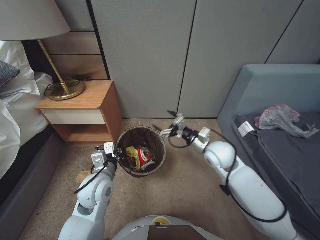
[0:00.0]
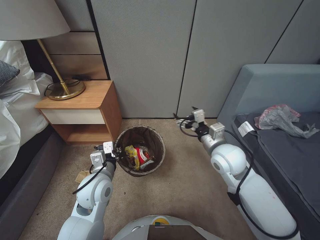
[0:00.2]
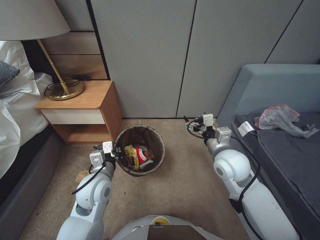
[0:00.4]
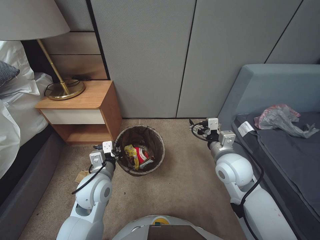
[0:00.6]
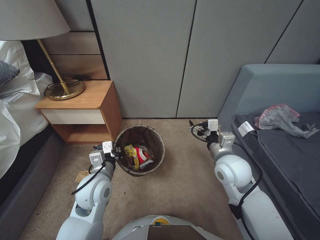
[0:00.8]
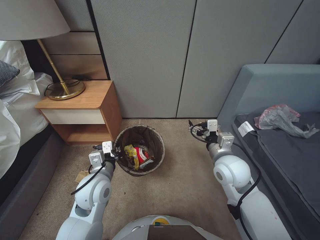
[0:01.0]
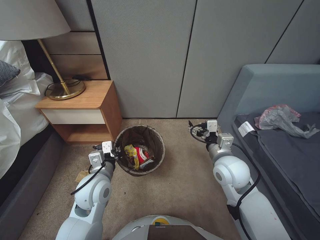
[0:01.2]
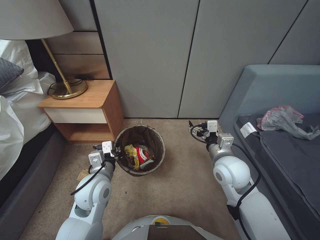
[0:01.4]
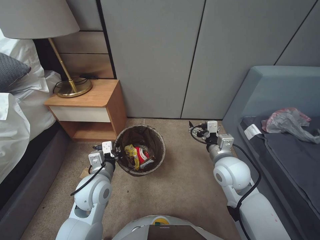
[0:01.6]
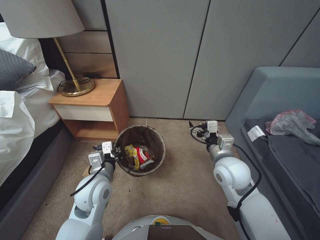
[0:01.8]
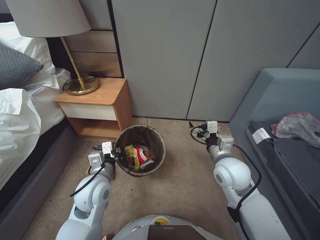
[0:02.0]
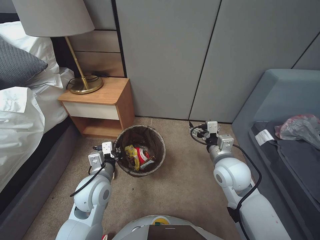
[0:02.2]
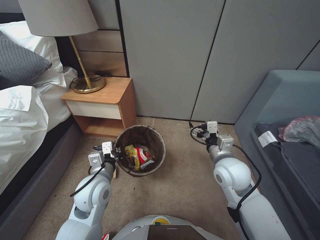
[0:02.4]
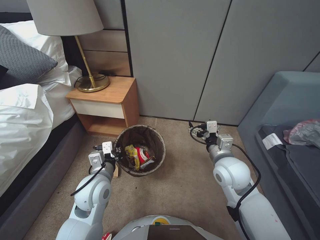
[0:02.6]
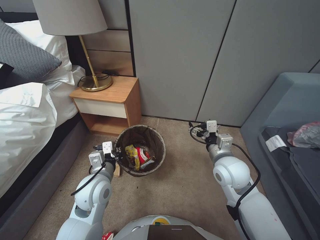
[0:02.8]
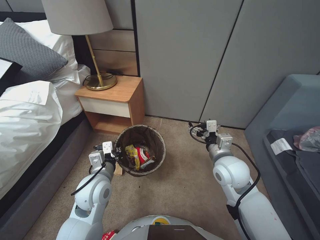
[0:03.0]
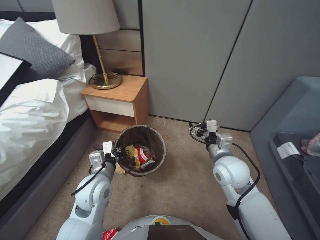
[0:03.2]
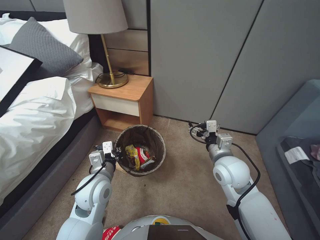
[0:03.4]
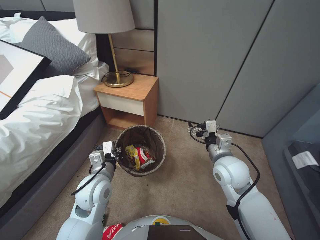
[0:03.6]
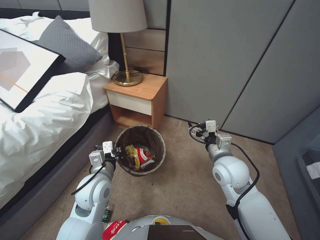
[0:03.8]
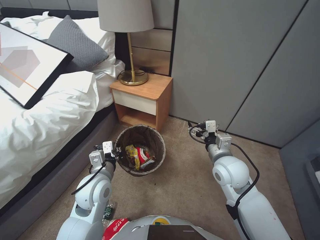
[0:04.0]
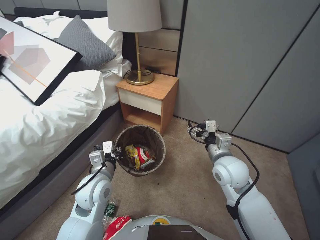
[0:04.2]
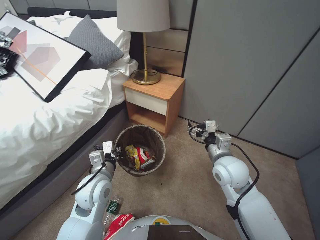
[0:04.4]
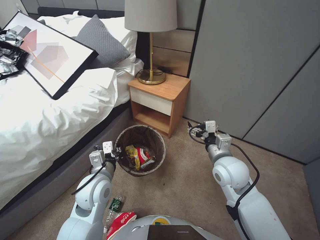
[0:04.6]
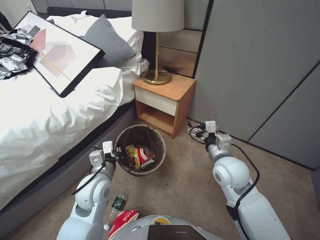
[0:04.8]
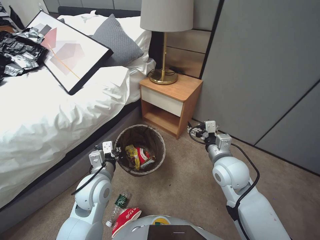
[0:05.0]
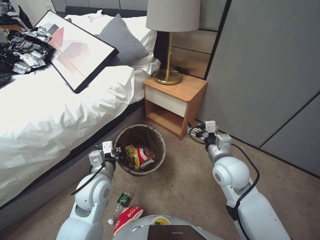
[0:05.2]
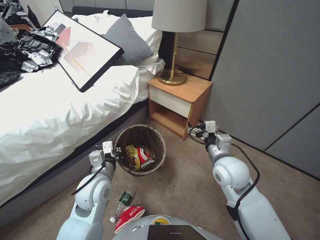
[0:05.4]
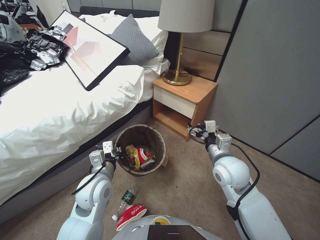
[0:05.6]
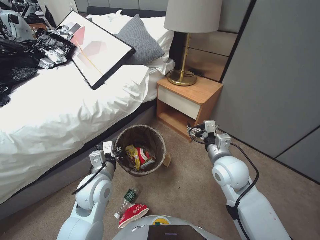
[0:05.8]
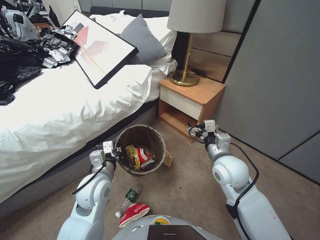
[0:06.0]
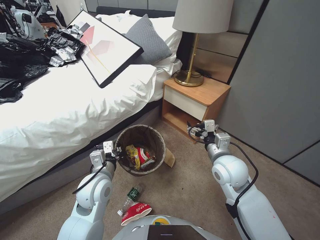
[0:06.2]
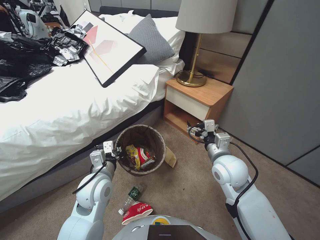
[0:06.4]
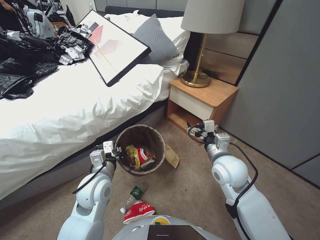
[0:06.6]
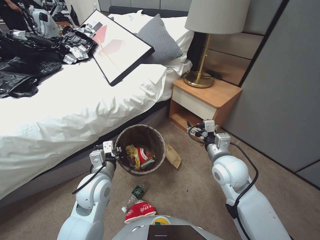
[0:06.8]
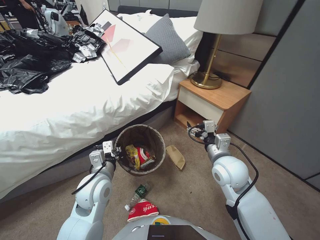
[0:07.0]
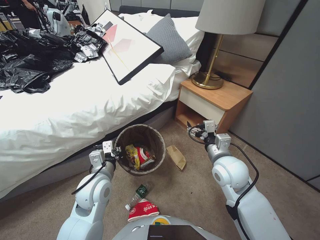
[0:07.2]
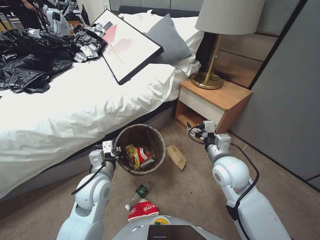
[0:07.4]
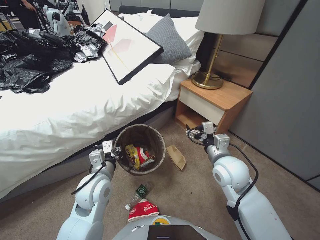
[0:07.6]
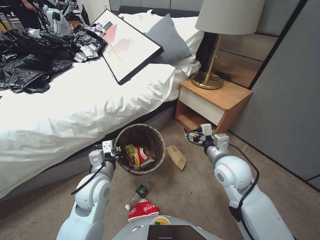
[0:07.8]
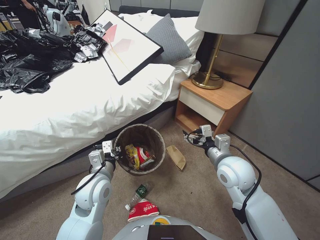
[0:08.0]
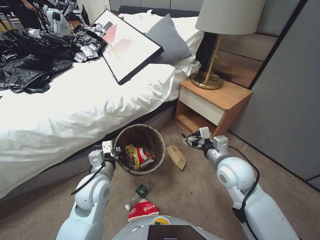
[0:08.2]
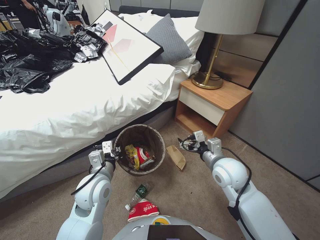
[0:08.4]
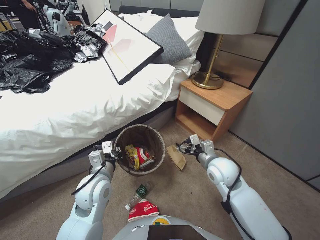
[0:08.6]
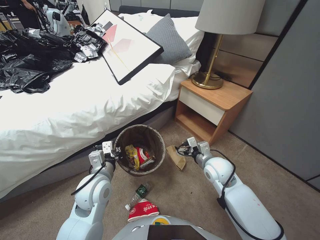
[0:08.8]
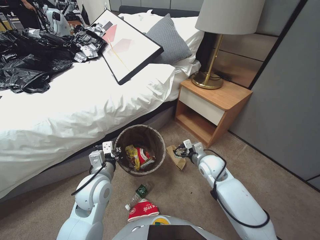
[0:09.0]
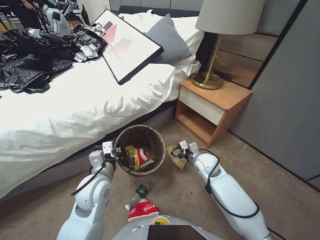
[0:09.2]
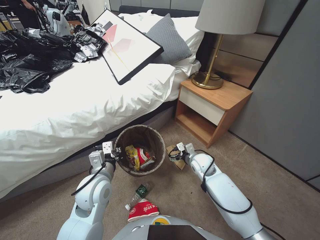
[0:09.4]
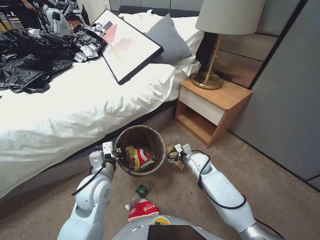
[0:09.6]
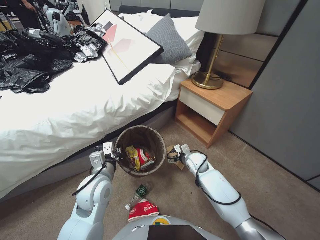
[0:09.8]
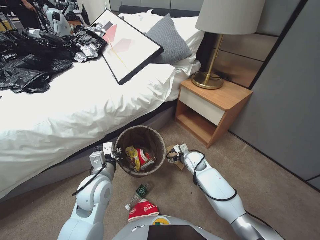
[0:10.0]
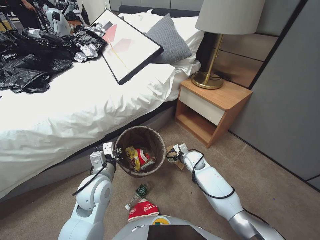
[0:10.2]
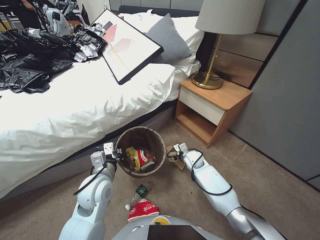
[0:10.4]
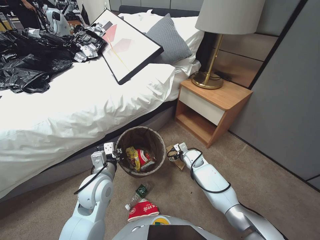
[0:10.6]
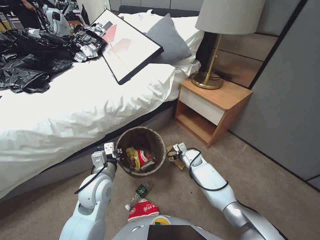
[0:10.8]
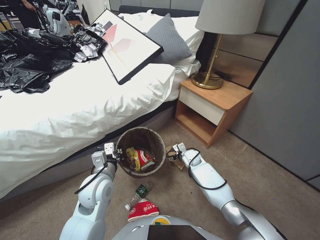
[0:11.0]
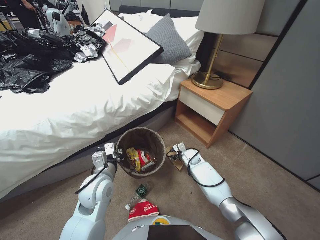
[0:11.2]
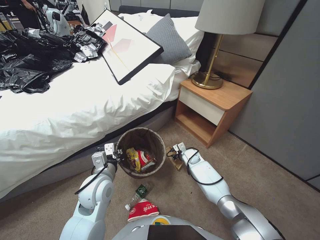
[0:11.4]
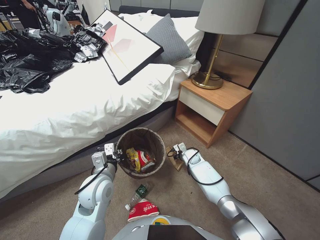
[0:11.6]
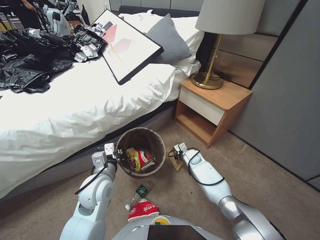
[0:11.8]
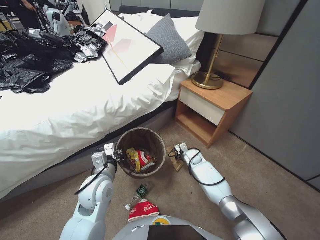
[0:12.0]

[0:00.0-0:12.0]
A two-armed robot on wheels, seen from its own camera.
Task of the whole recording: Pick up the trash bin, then pick up the garbage from the floor and place it into the trash bin.
0:00.0 to 0:01.6: The right gripper is displaced backward and upward by roughly 10 cm.
0:07.6 to 0:09.0: The right gripper travels downward and forward by approximately 10 cm.
0:09.0 to 0:10.4: The right gripper is displaced downward and forward by some 15 cm.
0:10.4 to 0:12.0: The right gripper shifts by some 5 cm, and closes.

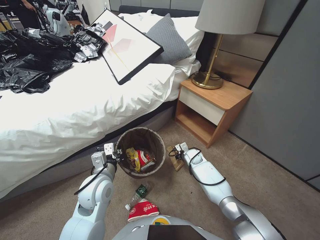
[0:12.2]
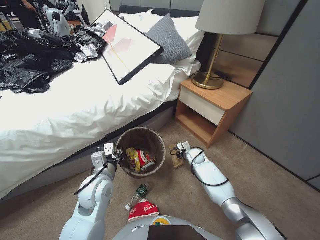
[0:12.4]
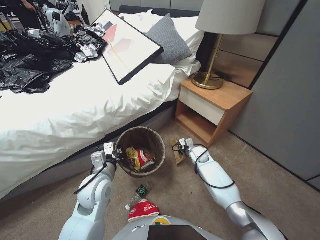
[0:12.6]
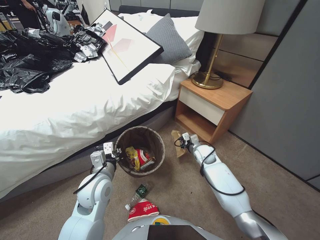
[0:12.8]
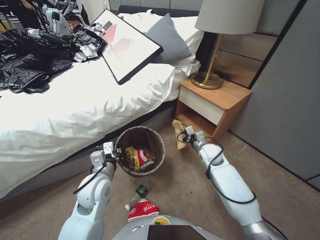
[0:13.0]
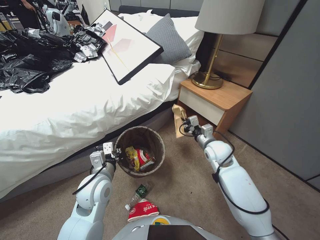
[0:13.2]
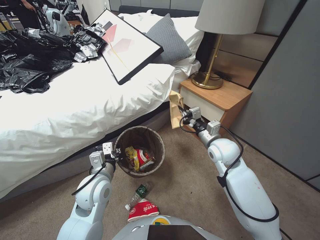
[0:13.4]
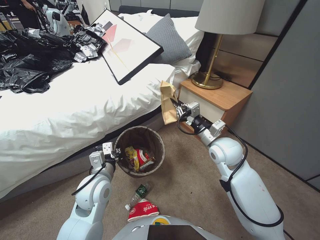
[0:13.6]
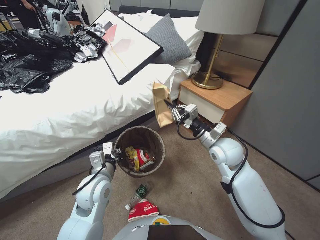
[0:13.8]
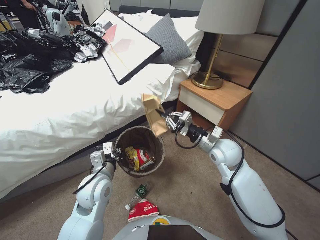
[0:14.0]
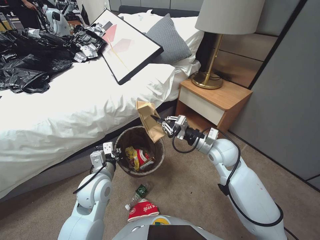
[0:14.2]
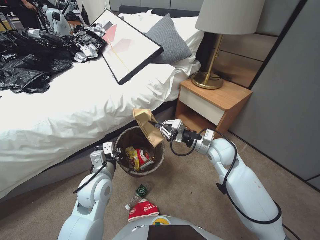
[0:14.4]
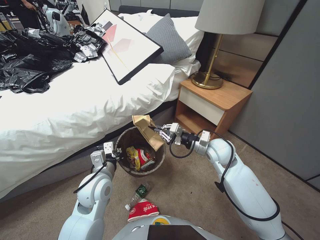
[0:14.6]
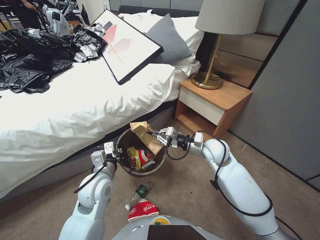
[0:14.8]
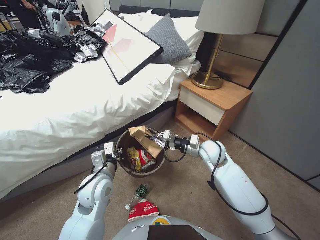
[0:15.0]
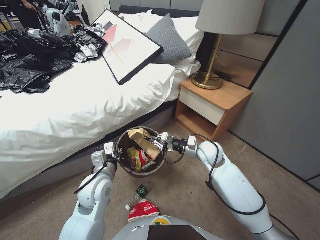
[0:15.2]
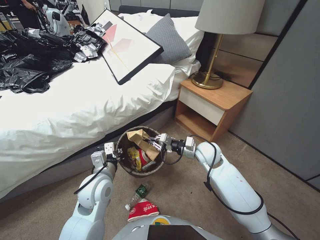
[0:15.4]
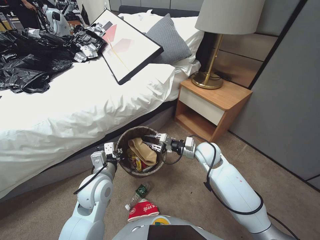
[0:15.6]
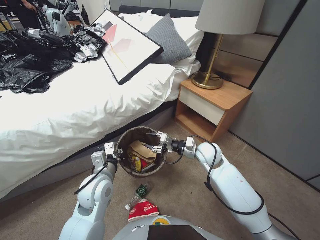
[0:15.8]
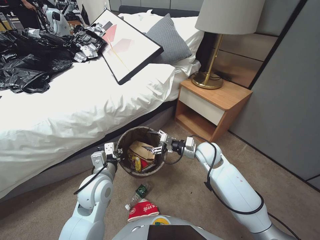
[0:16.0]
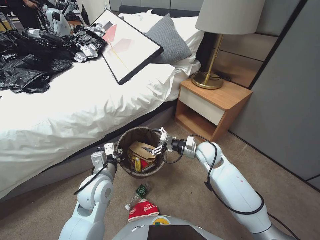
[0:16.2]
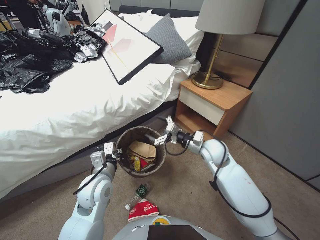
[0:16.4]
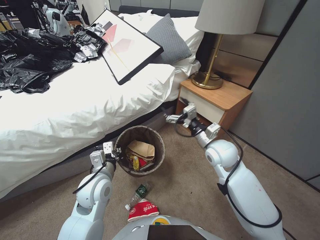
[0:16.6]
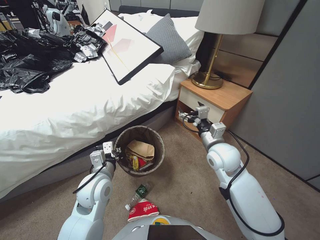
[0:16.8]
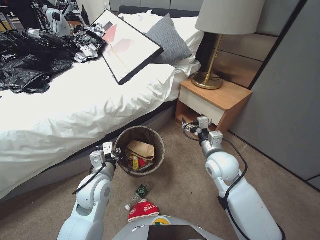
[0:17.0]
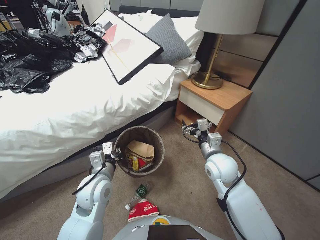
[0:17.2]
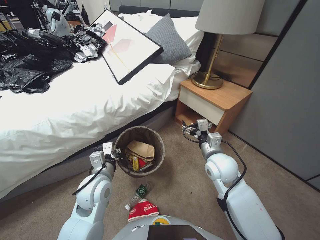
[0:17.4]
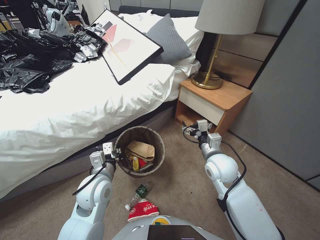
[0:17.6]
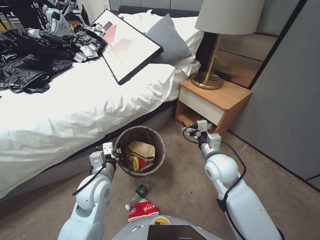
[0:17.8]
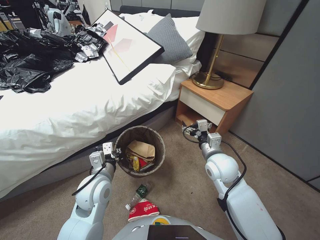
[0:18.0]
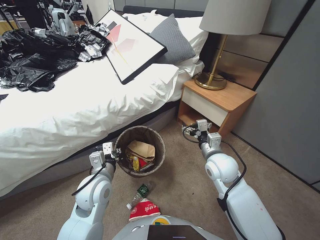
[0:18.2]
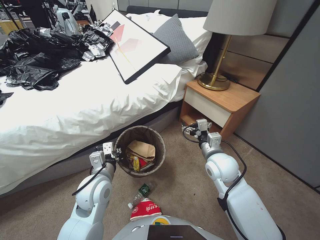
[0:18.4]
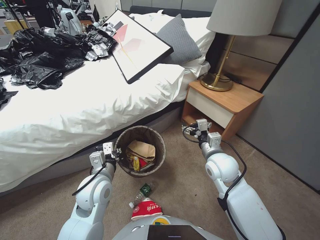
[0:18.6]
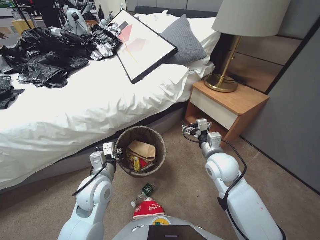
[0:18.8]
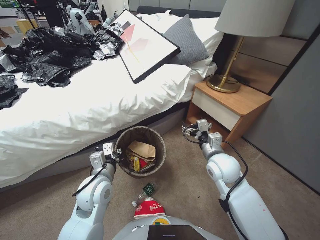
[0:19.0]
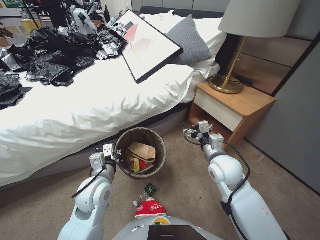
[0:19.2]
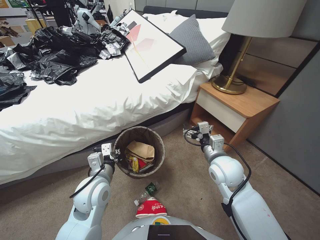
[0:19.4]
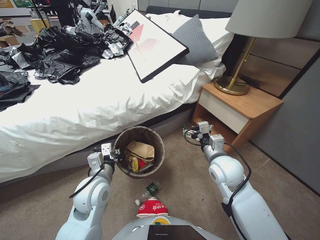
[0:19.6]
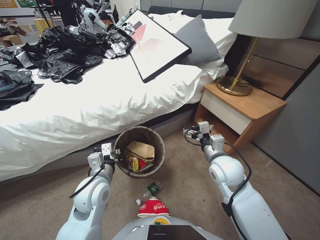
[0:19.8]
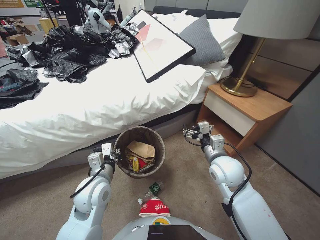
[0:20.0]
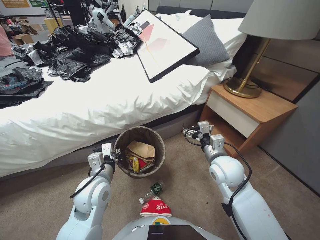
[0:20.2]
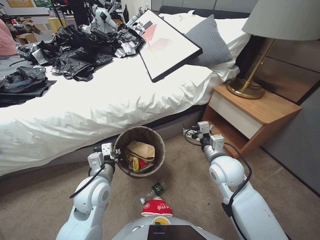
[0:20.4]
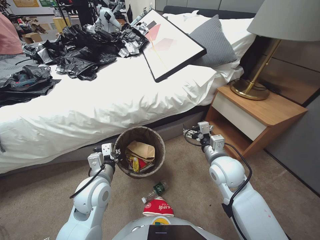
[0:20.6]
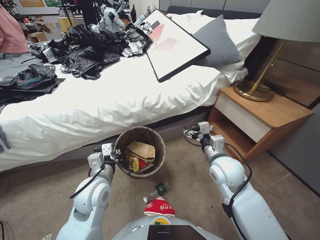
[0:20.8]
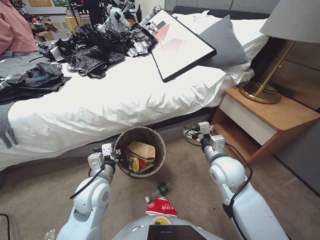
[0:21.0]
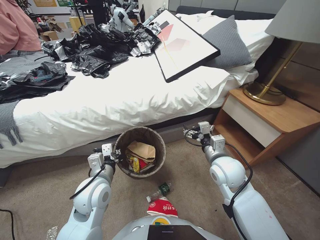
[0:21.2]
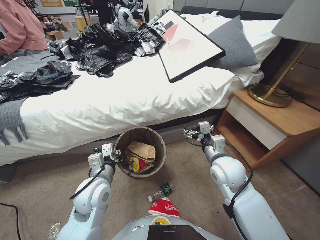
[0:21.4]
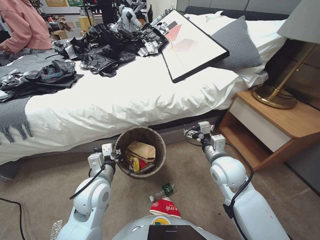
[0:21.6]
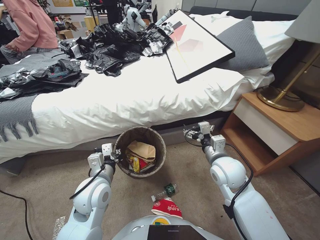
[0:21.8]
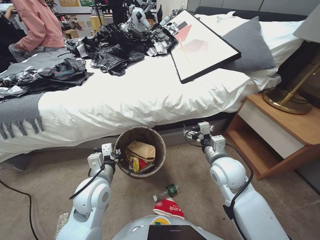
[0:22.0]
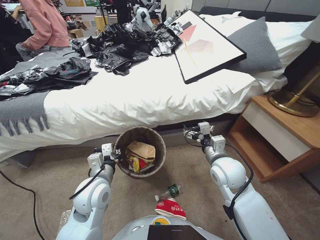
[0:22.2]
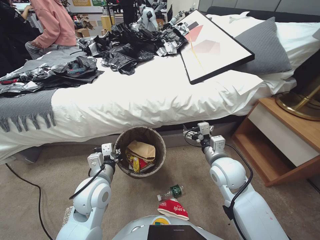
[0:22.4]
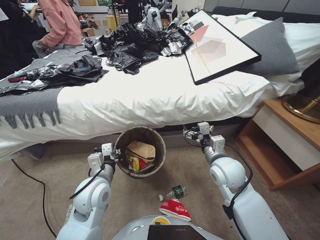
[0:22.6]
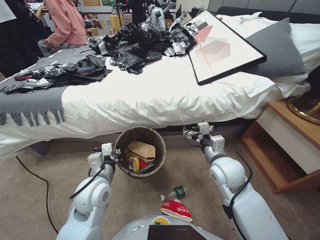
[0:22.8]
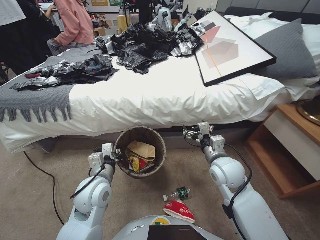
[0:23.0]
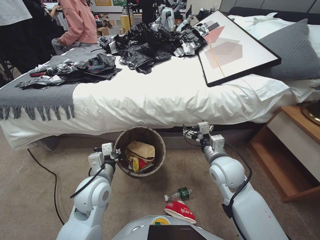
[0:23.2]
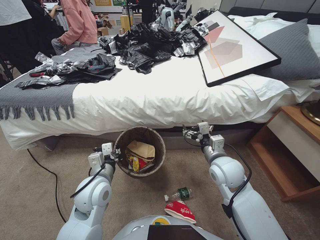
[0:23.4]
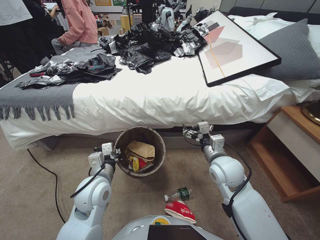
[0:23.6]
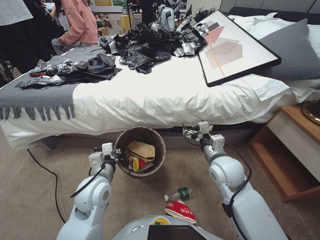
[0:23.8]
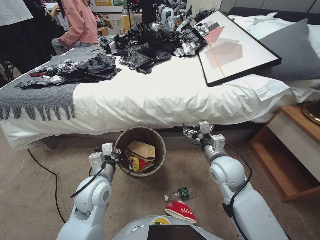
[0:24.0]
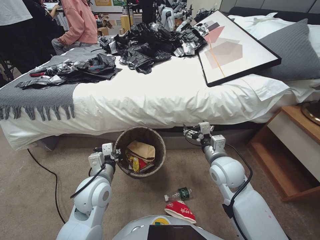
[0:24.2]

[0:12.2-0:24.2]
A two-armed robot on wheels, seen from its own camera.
Task of the whole recording: Pick up the trash bin, then pick up the garbage from the floor and place it into the trash bin.
0:12.2 to 0:13.8: The right gripper is displaced upward and backward by some 30 cm.
0:13.8 to 0:15.2: The right gripper goes approximately 5 cm downward.
0:15.2 to 0:16.6: The right gripper changes place by approximately 5 cm, and opens.
0:16.6 to 0:18.2: The right gripper changes place by approximately 5 cm.
